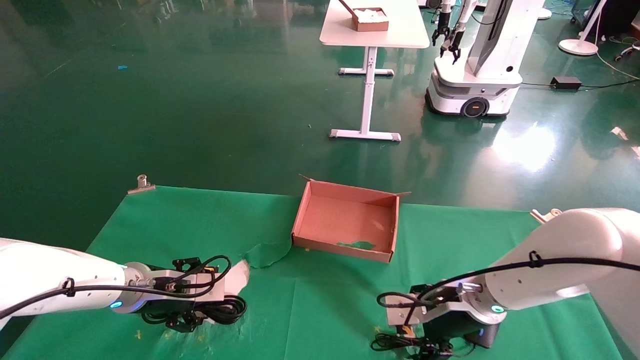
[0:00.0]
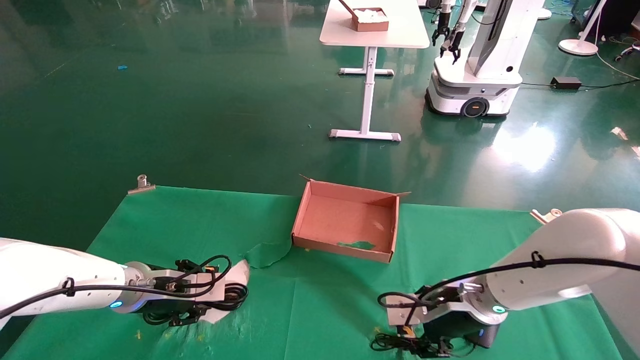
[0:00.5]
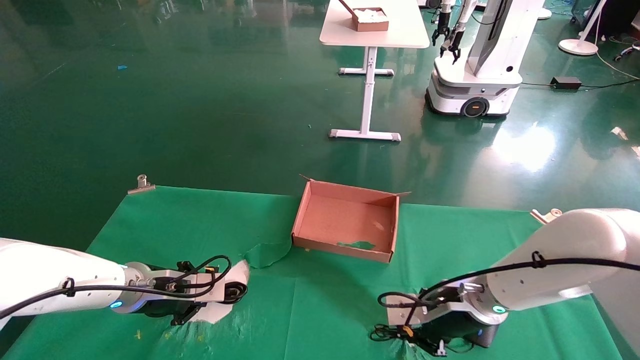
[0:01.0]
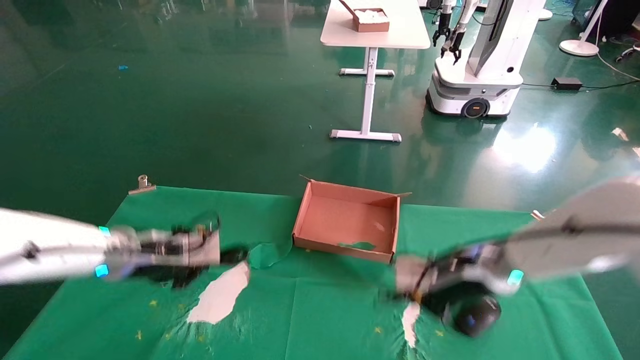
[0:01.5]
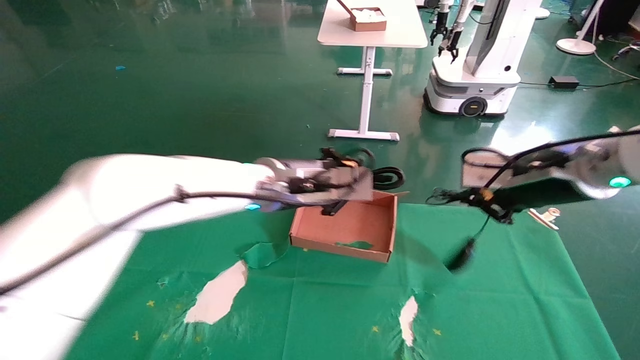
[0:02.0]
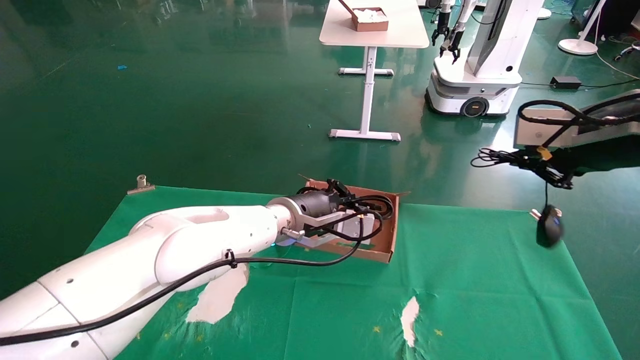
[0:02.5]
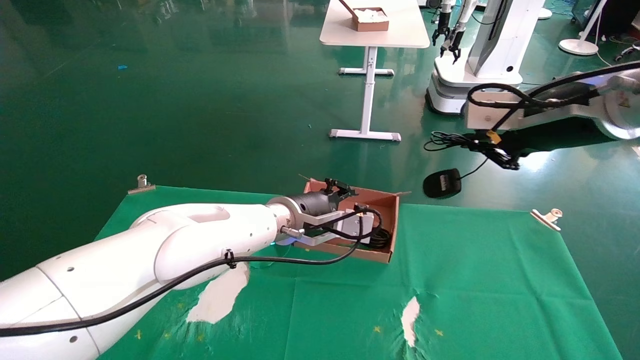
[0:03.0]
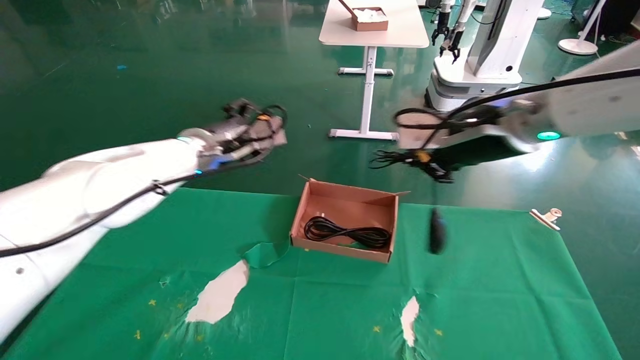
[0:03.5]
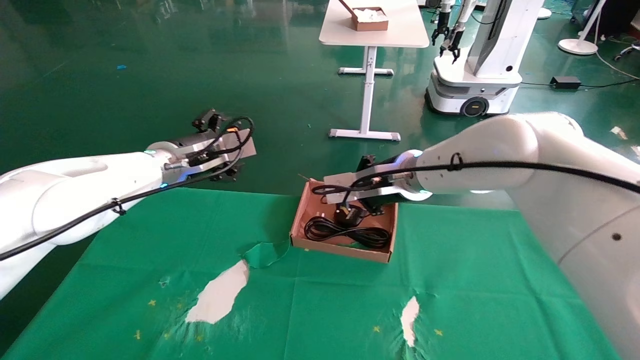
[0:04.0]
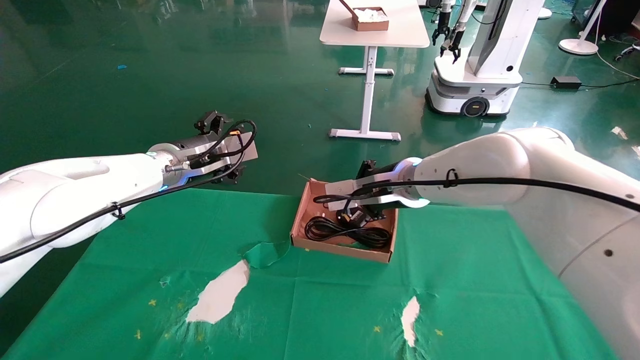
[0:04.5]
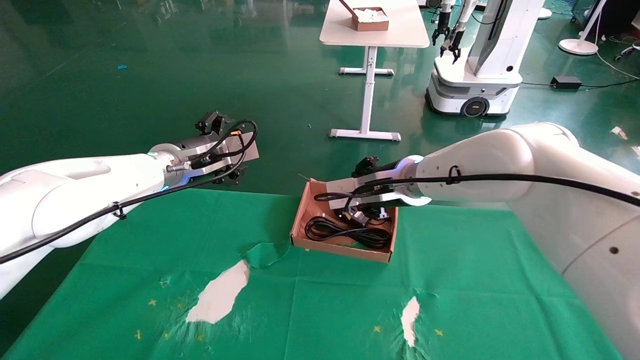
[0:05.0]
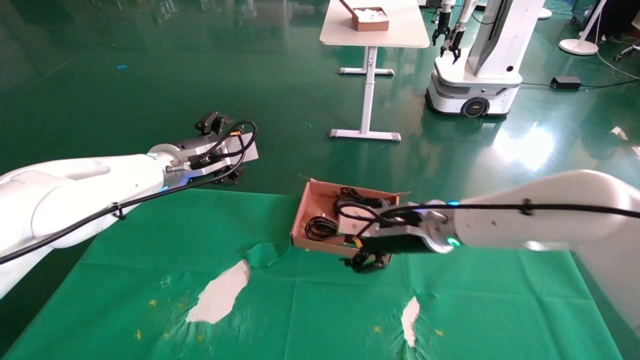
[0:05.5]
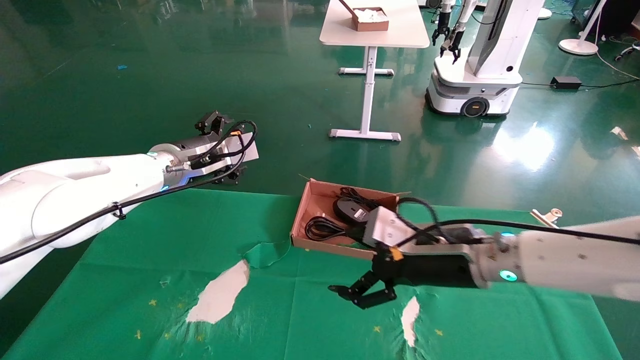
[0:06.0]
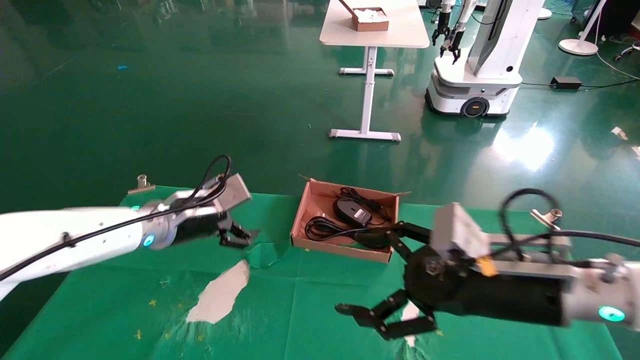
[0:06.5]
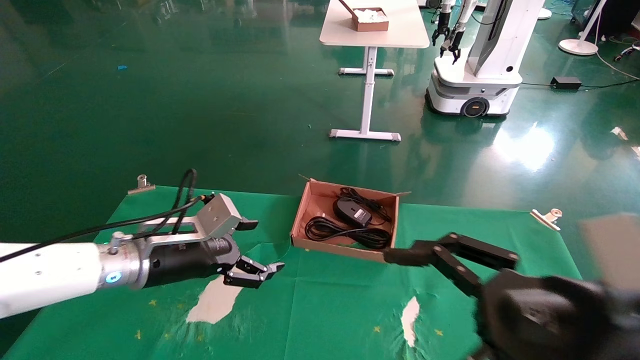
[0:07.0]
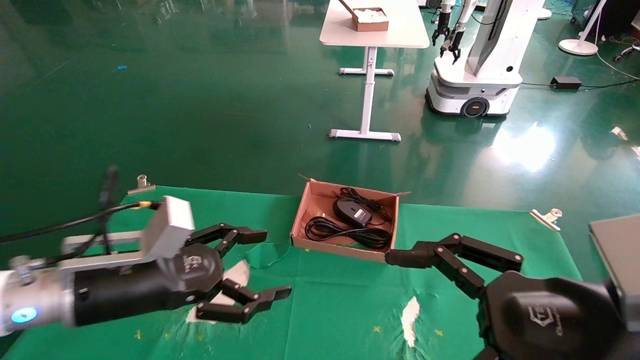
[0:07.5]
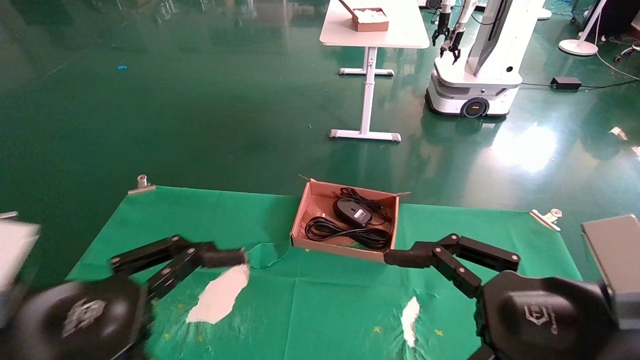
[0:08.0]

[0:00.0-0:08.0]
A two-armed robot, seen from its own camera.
Step, 0:00.0 to 0:02.0: Grab and lift both the mouse and power cord from the accessory packaging area at the same time.
Step, 0:02.5 to 0:05.5: Place the mouse and power cord into the box.
0:00.0 to 0:02.0: The right gripper moves upward and to the right, about 20 cm, and closes, while the left gripper travels to the right and upward by some 25 cm, and closes its fingers.
0:02.0 to 0:04.0: The right gripper is displaced to the left and forward by roughly 20 cm. The left gripper travels to the left by roughly 15 cm, and opens its fingers.
0:04.0 to 0:06.0: The right gripper heads backward, downward and to the right, covering about 15 cm, and opens up.
0:06.0 to 0:08.0: The right gripper shifts approximately 20 cm backward and to the right. Meanwhile the left gripper heads backward, covering some 30 cm.
